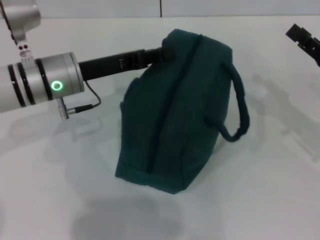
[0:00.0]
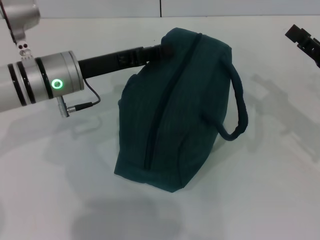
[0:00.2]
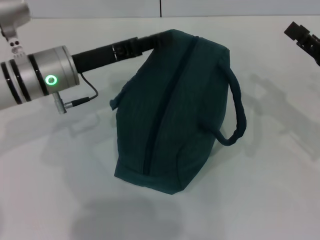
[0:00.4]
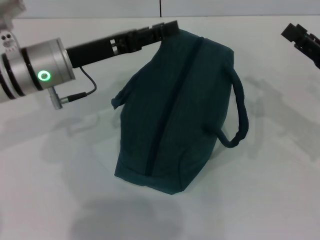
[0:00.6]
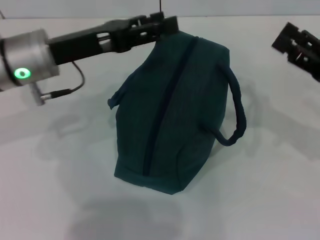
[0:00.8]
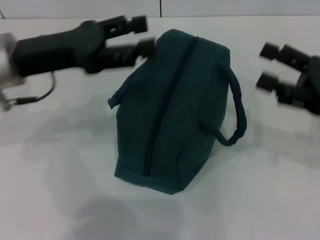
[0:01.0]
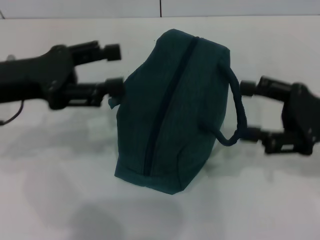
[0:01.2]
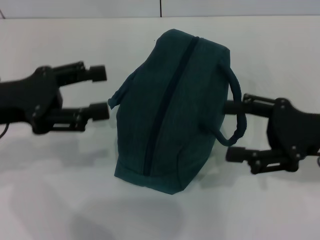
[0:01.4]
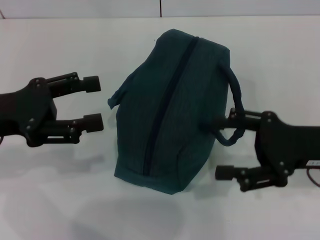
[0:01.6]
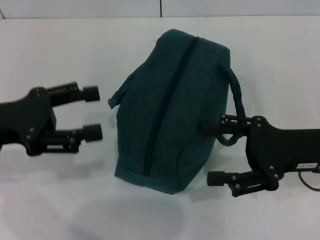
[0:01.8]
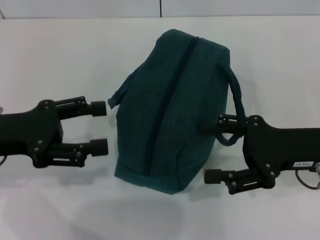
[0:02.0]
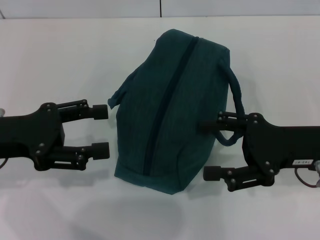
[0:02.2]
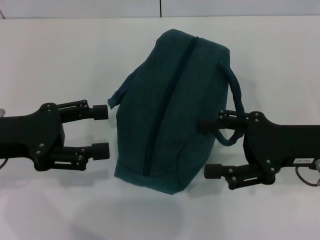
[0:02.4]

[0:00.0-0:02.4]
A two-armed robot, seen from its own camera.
0:00.0 to 0:01.2: The left gripper travels to the left, upward and backward by approximately 10 cm, and opens, while the right gripper moves about 5 cm.
0:01.2 to 0:02.4: The left gripper moves roughly 5 cm.
